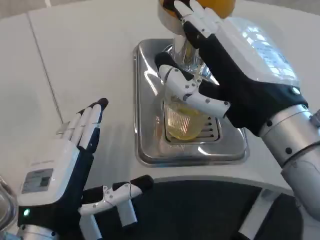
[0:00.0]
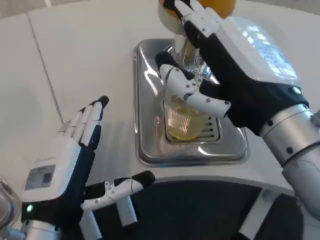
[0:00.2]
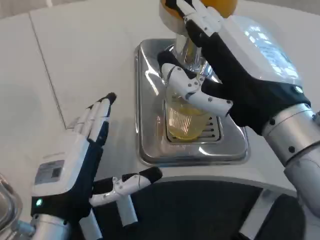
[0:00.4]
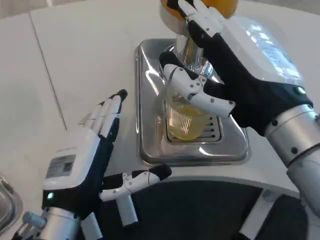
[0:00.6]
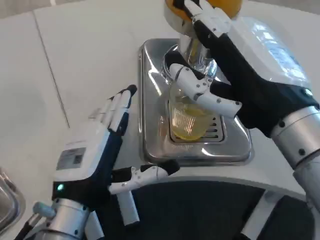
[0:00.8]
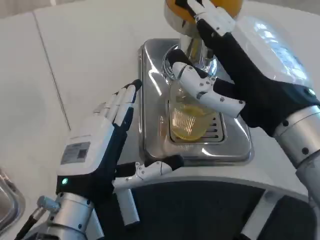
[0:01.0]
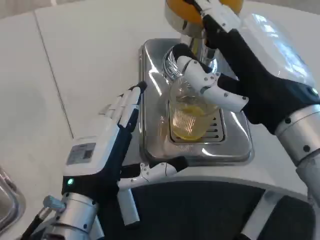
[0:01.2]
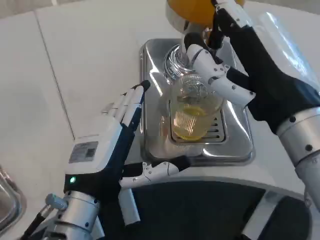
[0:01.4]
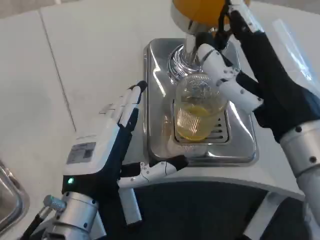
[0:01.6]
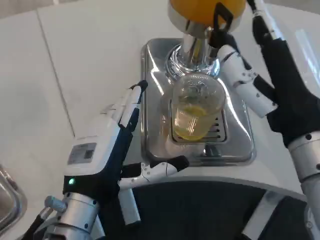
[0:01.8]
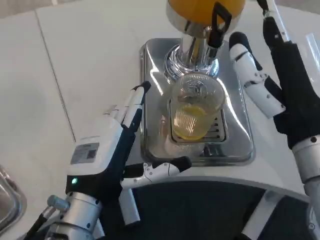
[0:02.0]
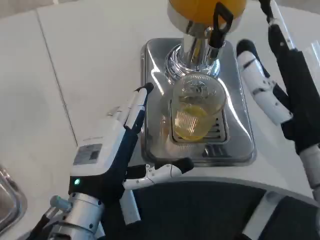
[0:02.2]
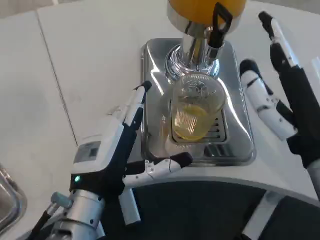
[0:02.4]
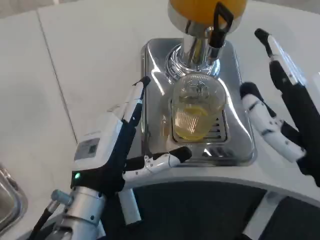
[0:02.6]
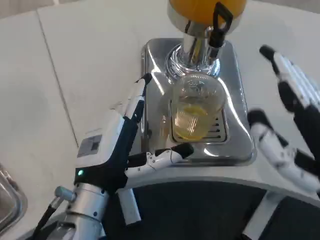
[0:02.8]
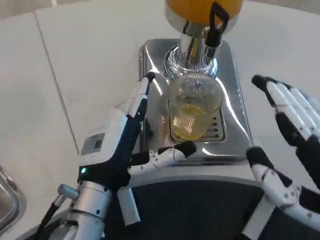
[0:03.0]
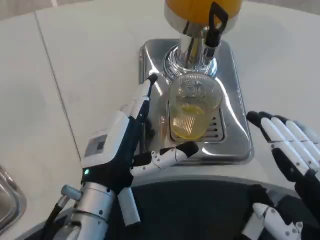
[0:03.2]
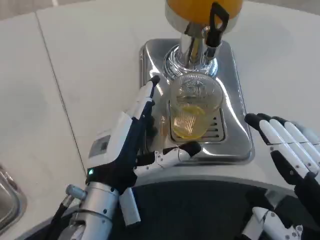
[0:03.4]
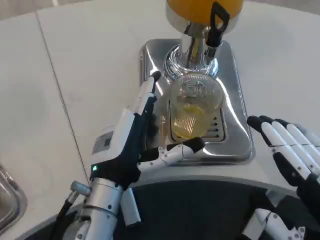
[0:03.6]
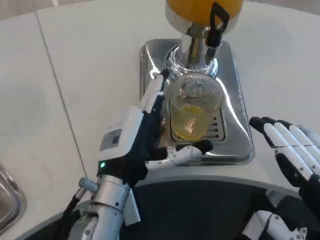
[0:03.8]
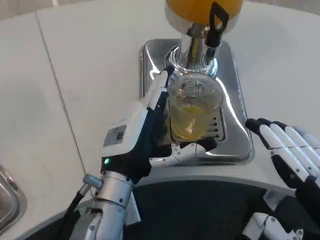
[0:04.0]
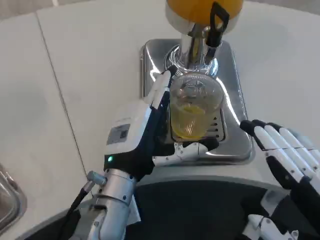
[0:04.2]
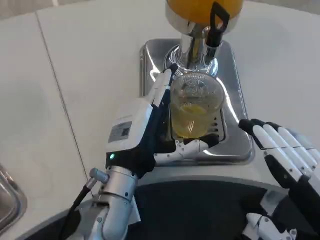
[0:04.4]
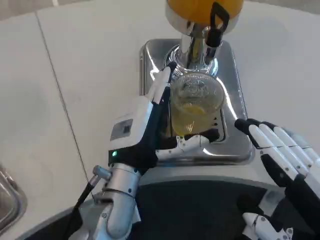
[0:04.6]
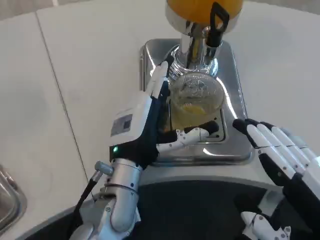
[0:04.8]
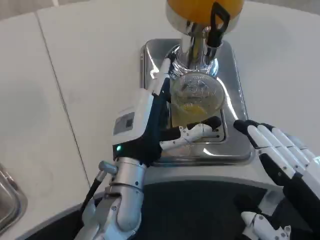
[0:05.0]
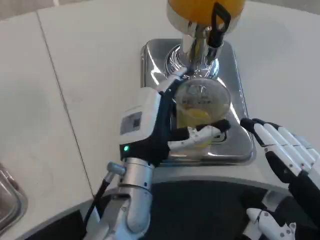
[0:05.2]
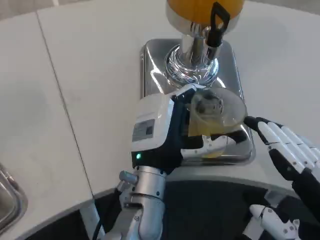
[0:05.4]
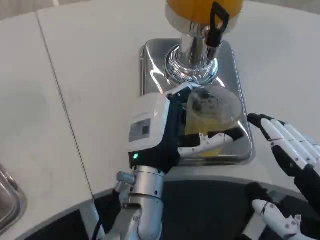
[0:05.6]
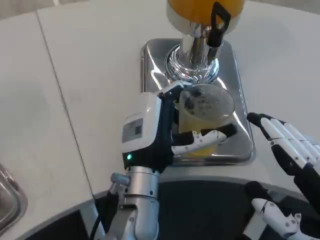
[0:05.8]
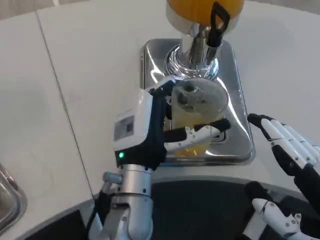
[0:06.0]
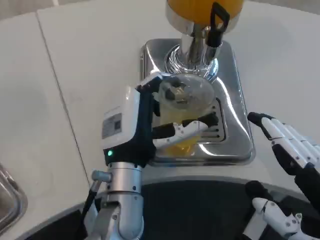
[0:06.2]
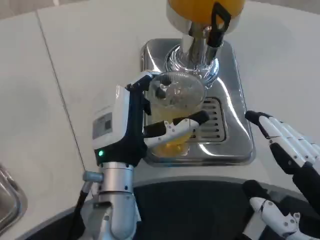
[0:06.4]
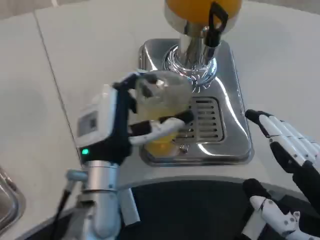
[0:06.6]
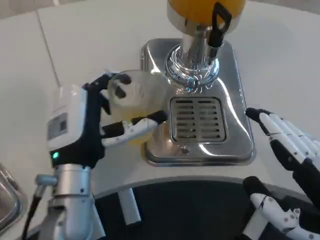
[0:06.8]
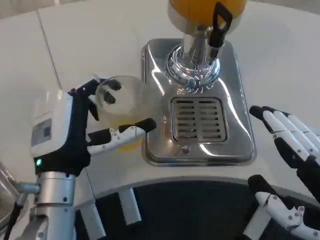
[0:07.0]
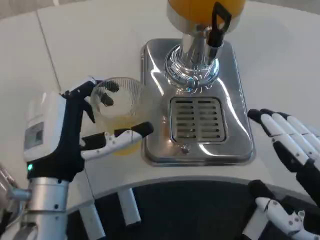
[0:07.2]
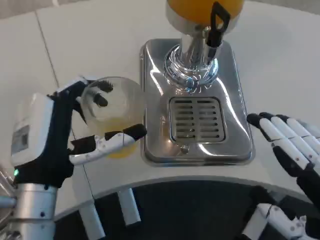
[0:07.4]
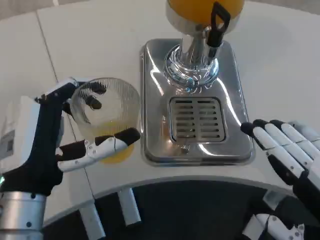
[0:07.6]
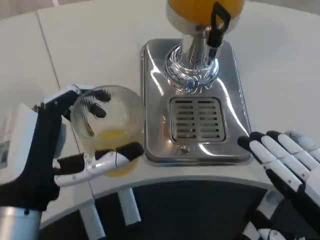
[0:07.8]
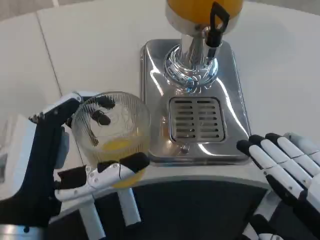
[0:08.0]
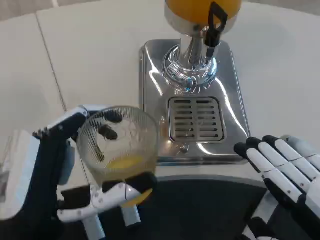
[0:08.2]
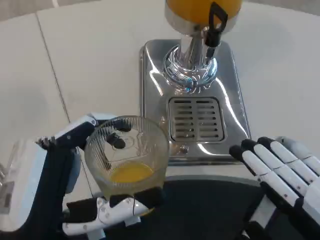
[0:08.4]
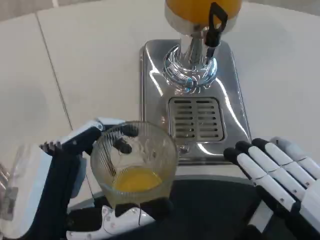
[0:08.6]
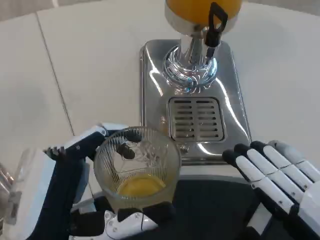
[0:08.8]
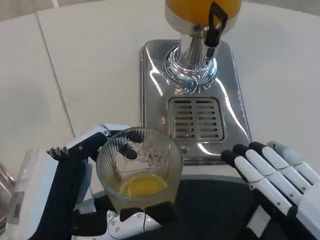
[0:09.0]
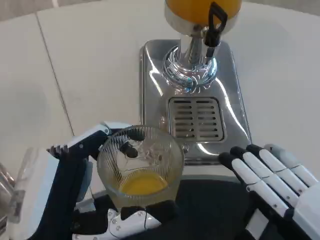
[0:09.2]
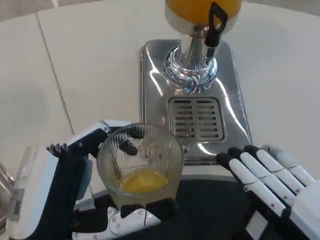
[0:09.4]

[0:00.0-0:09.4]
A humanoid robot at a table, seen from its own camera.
Task of the whole recording: Grasp the cup under the faucet to collect the drink, then remove the cup.
0:00.0 to 0:01.6: The left hand changes place by some 5 cm.
0:01.6 to 0:03.2: The right hand moves backward, to the right and downward, approximately 15 cm.
0:03.2 to 0:04.8: The left hand changes place by approximately 5 cm.
0:04.8 to 0:06.2: The hands make only small movements.
0:06.2 to 0:07.8: The left hand travels to the left and backward by about 15 cm.
0:07.8 to 0:09.4: The left hand is displaced backward by roughly 5 cm.

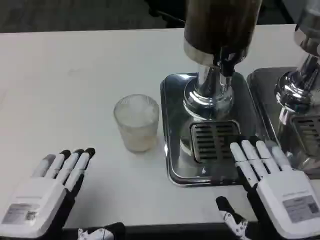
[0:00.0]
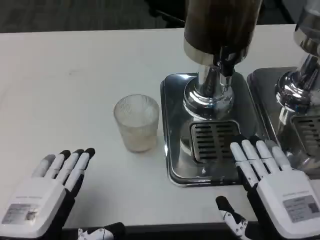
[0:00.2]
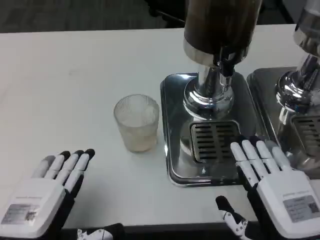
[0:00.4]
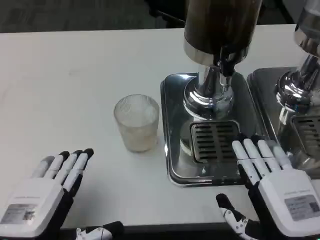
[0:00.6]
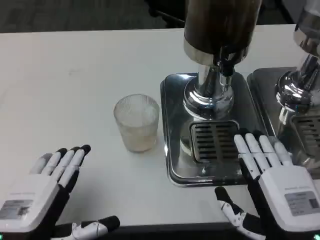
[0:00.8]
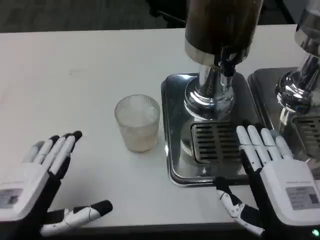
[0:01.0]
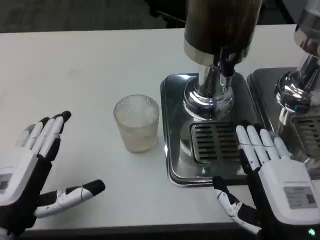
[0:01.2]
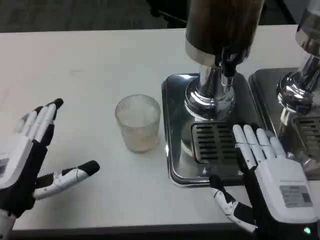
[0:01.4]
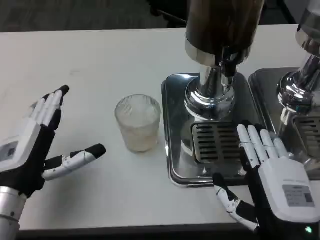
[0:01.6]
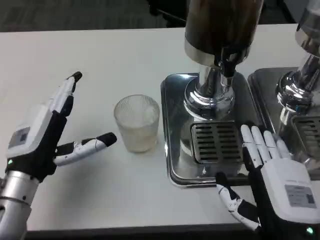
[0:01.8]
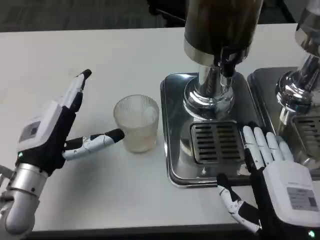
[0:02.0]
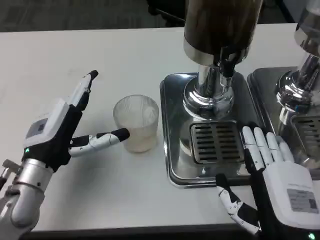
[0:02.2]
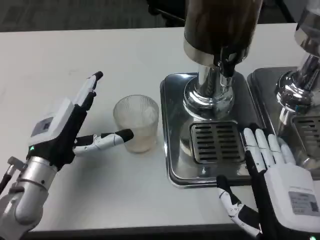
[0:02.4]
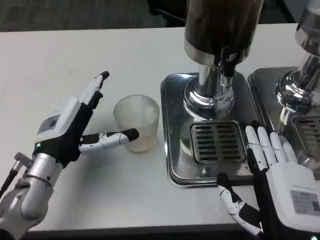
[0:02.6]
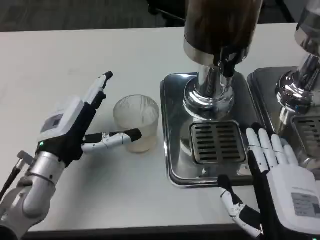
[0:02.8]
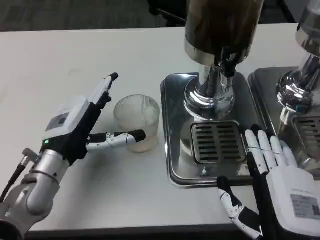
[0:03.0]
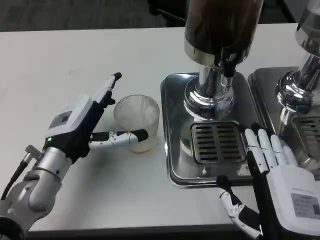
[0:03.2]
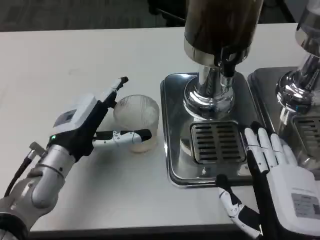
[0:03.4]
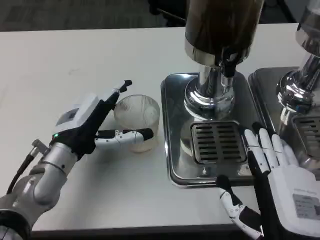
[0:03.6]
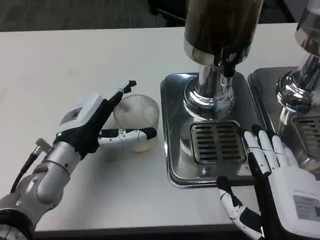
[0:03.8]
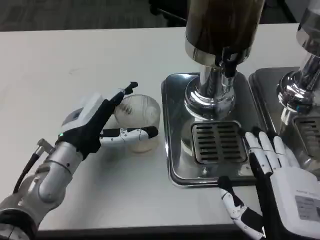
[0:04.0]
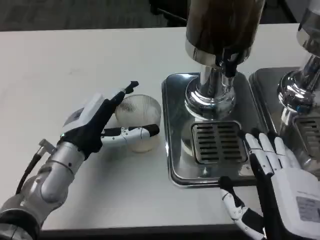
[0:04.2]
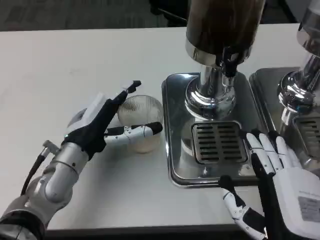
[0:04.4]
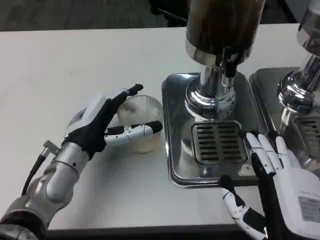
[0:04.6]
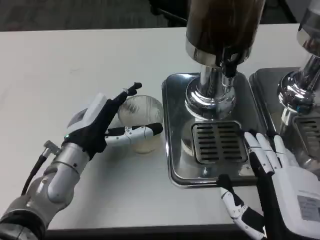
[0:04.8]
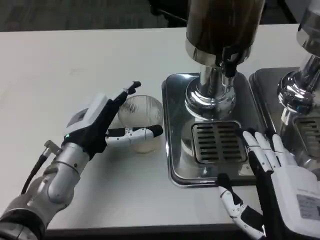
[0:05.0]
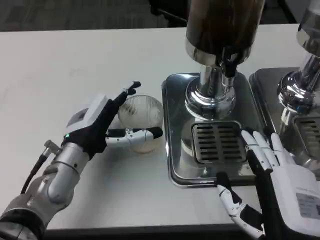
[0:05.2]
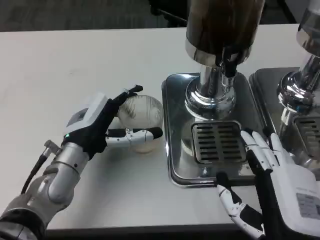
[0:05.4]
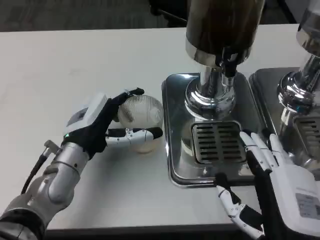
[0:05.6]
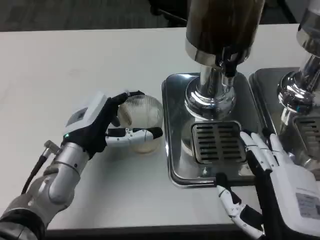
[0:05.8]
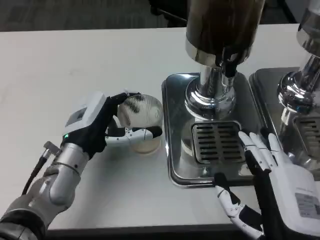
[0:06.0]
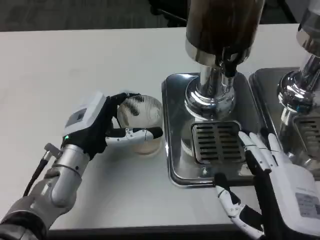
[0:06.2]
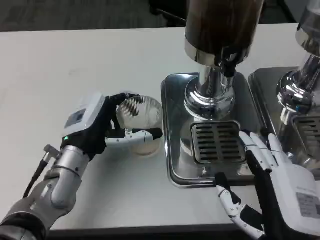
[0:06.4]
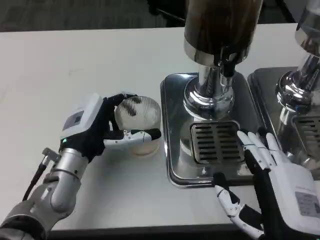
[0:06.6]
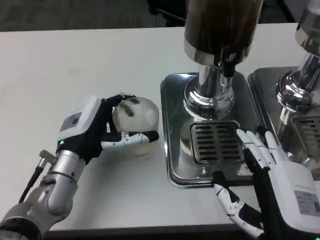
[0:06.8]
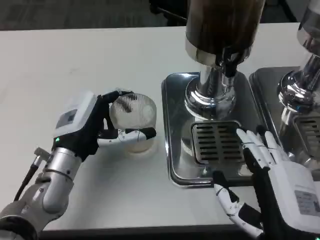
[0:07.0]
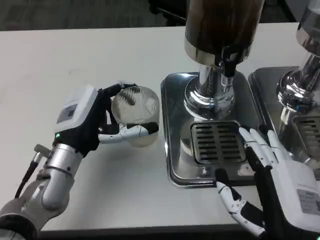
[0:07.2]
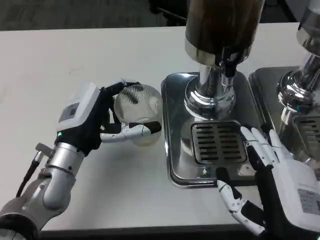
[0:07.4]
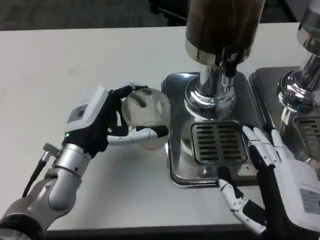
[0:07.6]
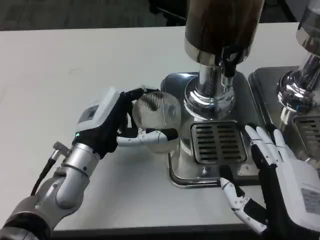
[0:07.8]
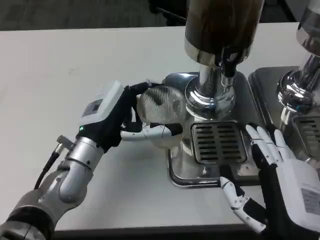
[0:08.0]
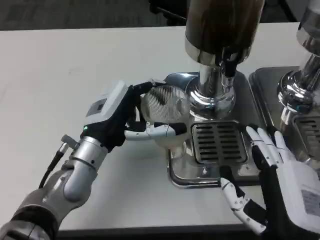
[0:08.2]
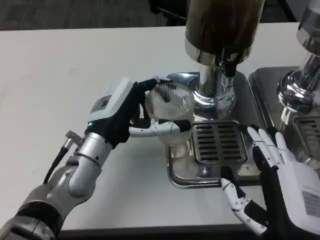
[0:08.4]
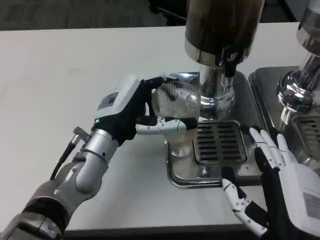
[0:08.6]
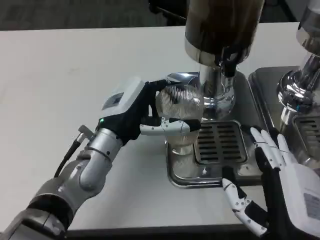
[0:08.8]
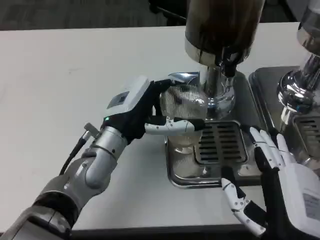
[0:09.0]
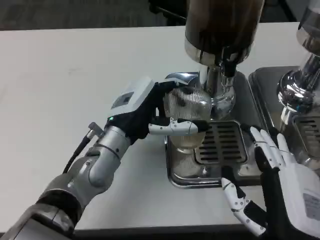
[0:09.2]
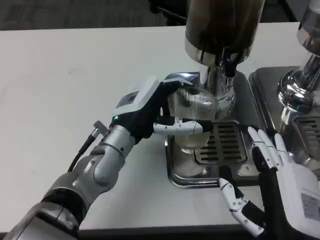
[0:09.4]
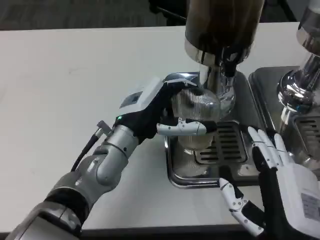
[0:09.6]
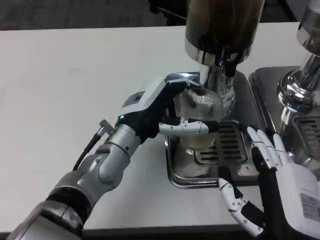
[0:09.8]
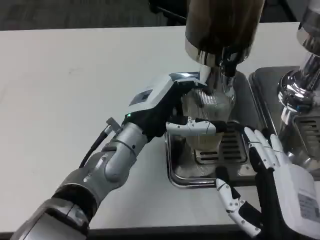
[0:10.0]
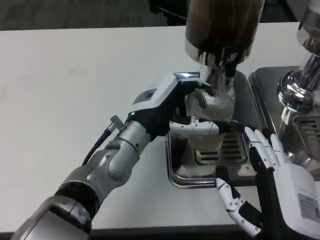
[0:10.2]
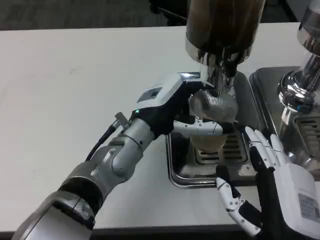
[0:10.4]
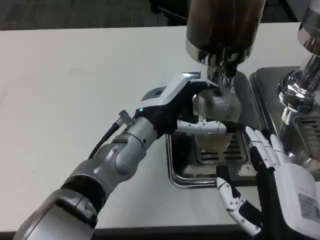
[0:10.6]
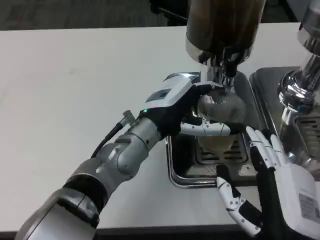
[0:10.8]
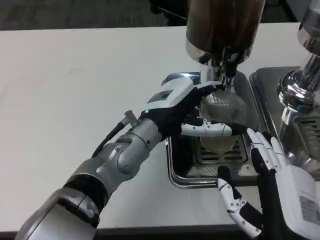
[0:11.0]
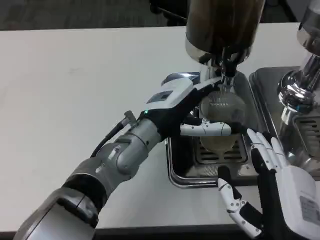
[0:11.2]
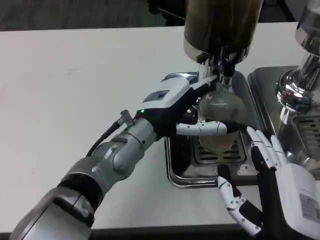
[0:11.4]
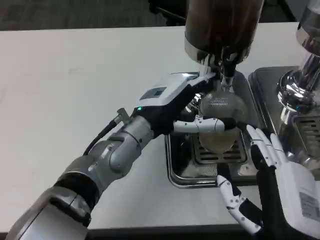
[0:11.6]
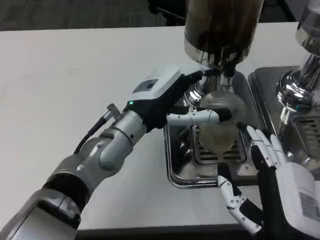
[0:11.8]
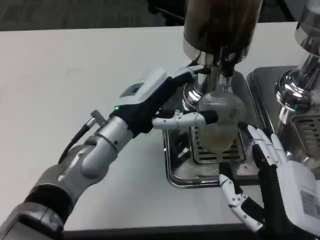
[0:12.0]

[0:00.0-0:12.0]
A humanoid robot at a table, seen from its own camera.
Task of the whole recording: Grasp the cup under the faucet to collect the drink, then remove the cup.
0:00.0 to 0:01.6: The left hand heads forward, covering approximately 10 cm.
0:01.6 to 0:03.0: The left hand shifts some 5 cm forward.
0:04.4 to 0:07.6: There are only small adjustments of the hands.
0:07.6 to 0:09.0: The left hand ends up approximately 5 cm from where it was.

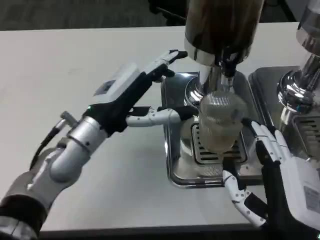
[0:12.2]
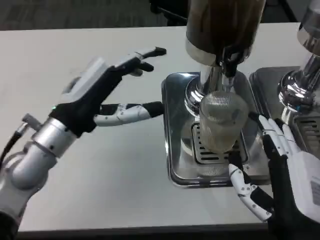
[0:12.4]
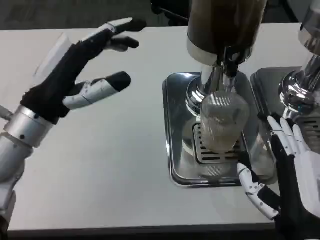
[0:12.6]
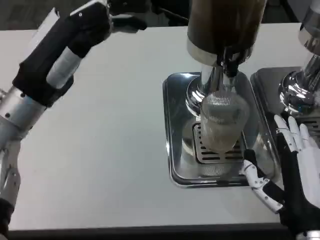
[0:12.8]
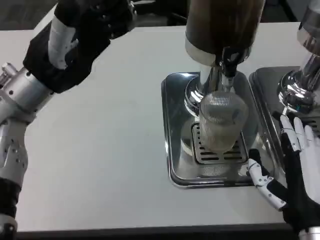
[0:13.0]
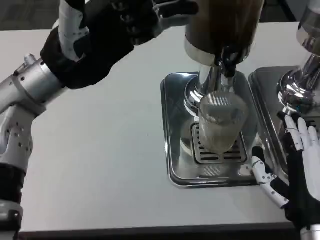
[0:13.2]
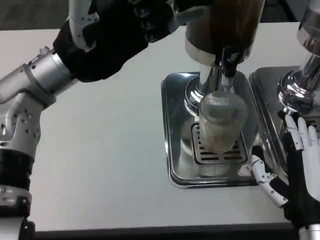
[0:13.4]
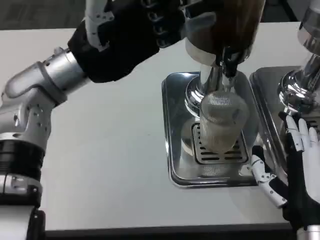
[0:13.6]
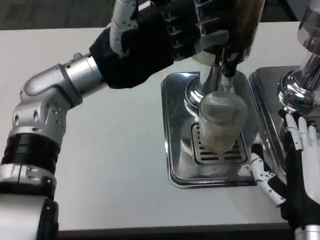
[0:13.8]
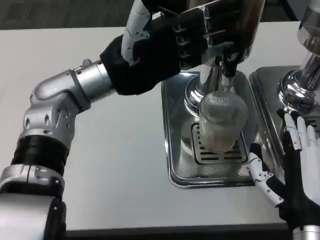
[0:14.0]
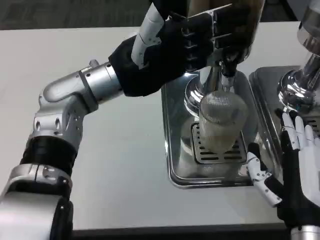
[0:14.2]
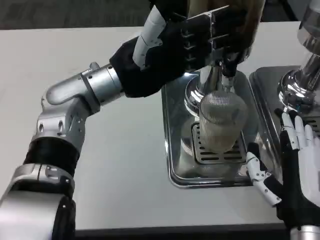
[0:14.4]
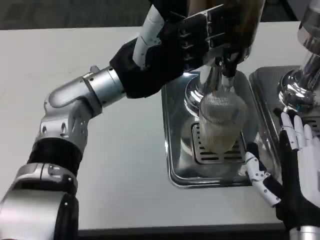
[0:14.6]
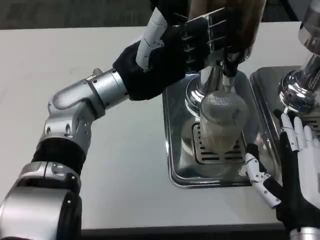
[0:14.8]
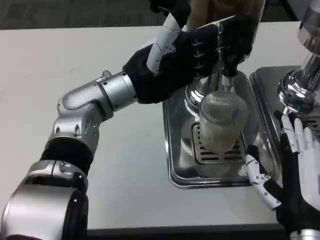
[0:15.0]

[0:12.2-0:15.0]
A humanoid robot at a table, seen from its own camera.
Task of the whole recording: Grasp the cup under the faucet to collect the drink, then remove the cup.
0:12.2 to 0:13.6: The left hand heads upward and forward, covering some 10 cm.
0:13.6 to 0:15.0: The left hand travels to the right by about 5 cm.